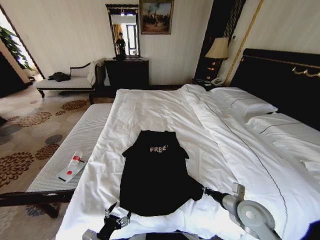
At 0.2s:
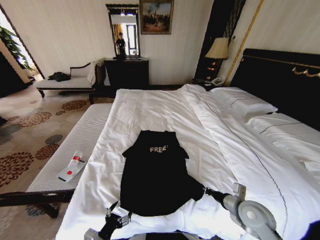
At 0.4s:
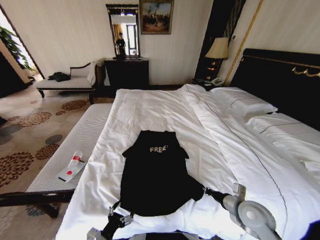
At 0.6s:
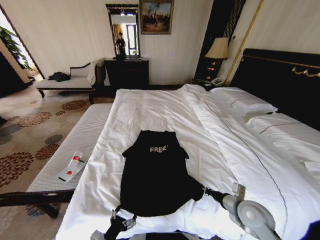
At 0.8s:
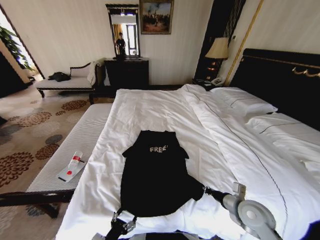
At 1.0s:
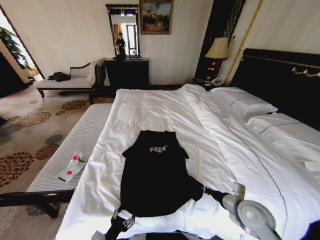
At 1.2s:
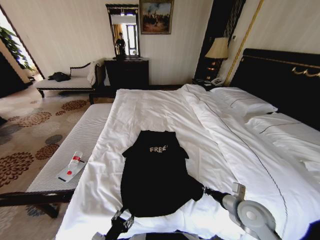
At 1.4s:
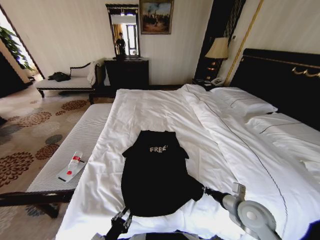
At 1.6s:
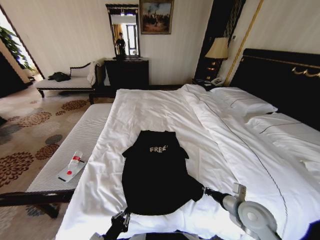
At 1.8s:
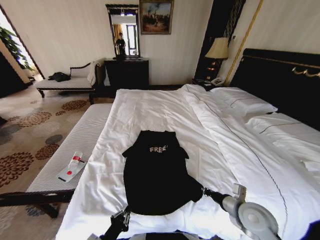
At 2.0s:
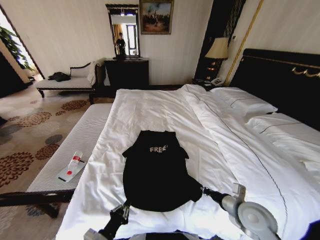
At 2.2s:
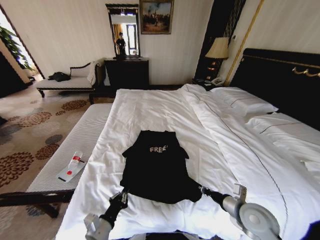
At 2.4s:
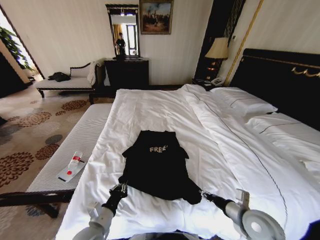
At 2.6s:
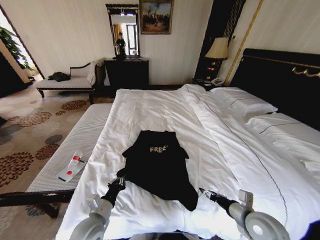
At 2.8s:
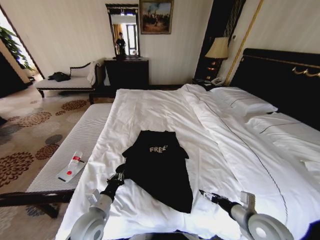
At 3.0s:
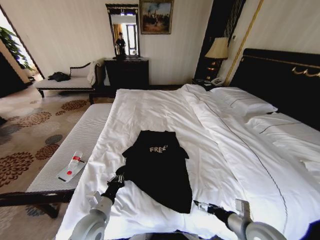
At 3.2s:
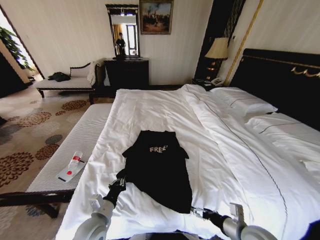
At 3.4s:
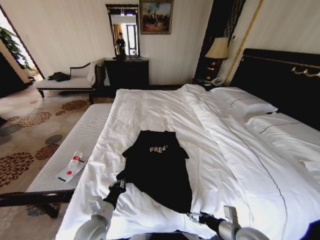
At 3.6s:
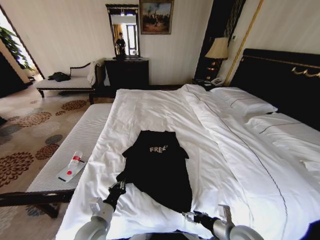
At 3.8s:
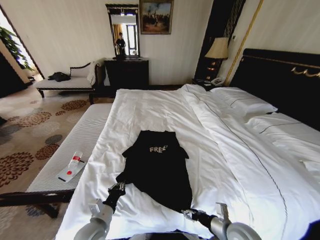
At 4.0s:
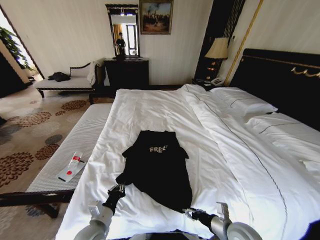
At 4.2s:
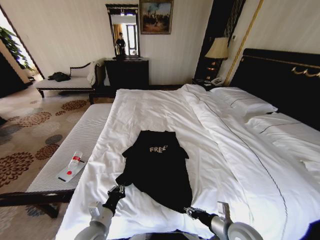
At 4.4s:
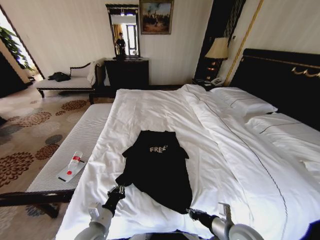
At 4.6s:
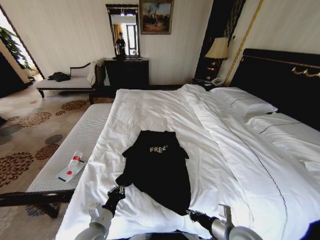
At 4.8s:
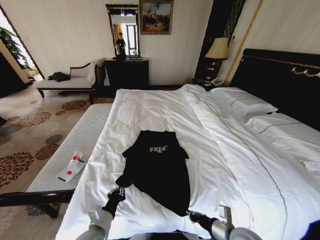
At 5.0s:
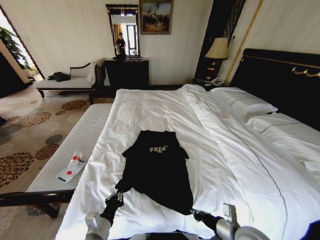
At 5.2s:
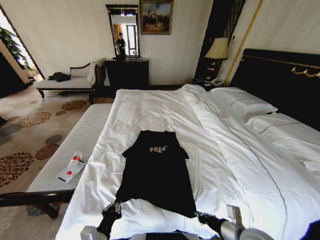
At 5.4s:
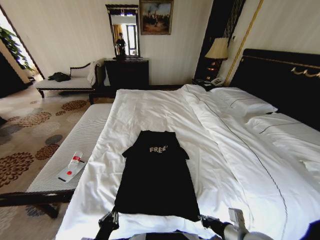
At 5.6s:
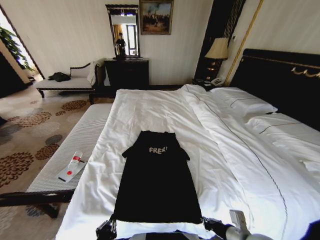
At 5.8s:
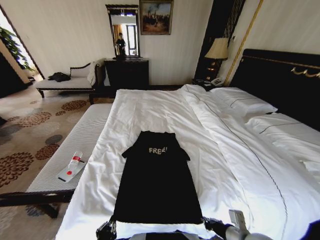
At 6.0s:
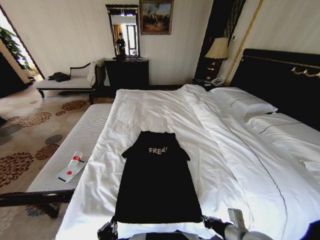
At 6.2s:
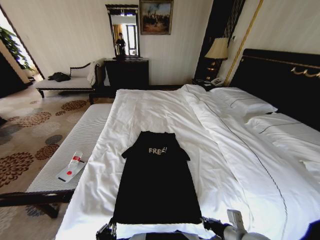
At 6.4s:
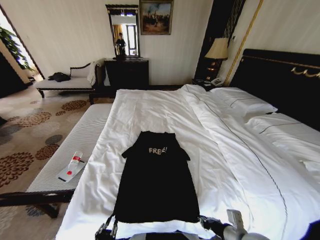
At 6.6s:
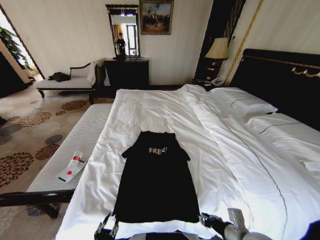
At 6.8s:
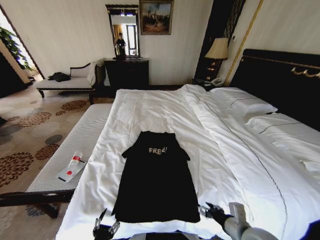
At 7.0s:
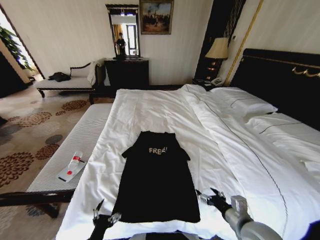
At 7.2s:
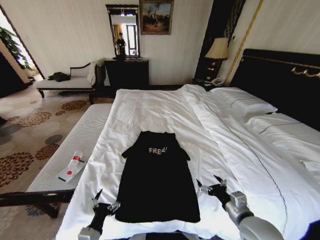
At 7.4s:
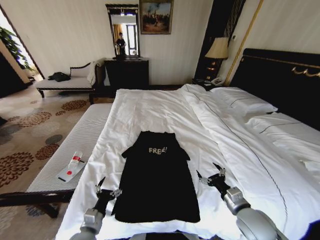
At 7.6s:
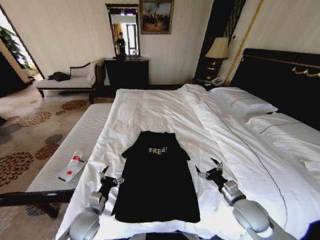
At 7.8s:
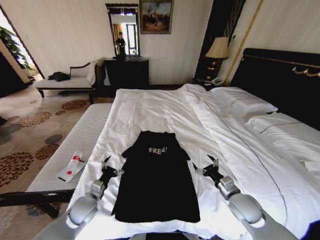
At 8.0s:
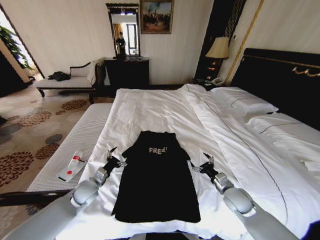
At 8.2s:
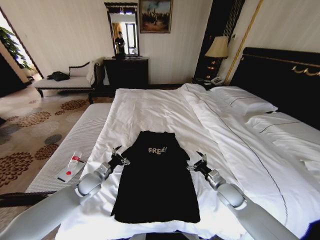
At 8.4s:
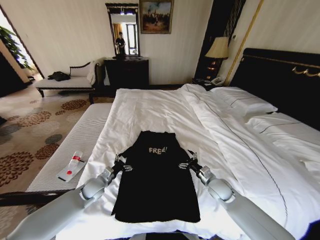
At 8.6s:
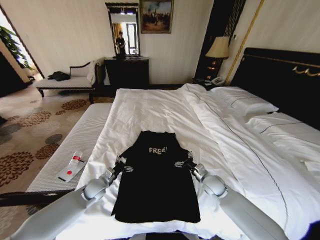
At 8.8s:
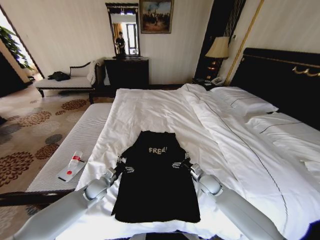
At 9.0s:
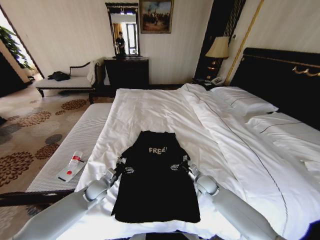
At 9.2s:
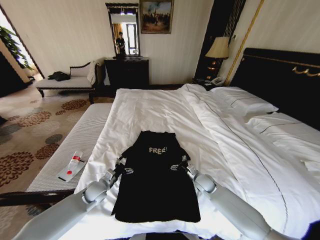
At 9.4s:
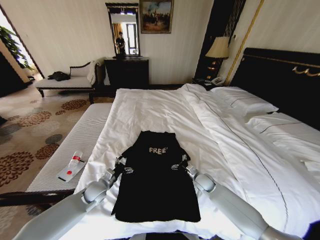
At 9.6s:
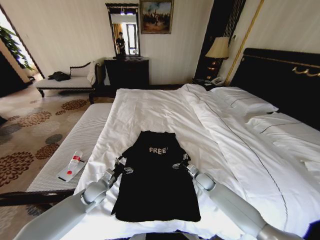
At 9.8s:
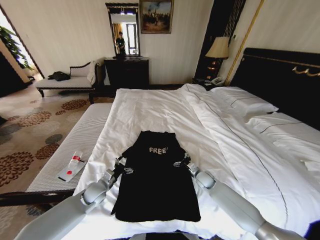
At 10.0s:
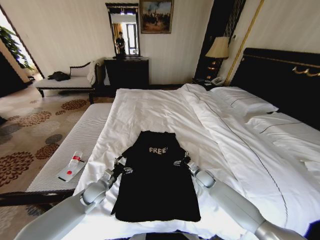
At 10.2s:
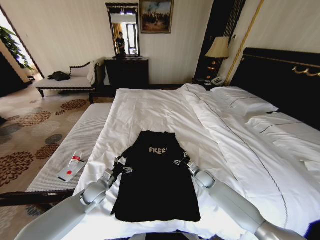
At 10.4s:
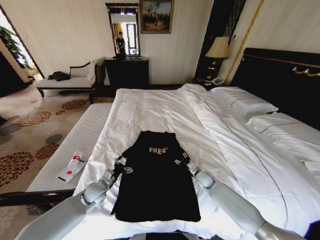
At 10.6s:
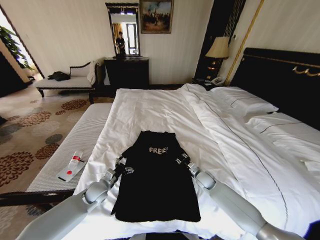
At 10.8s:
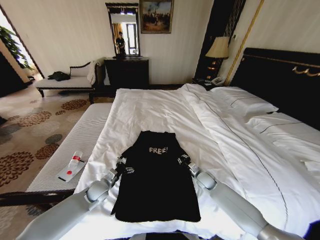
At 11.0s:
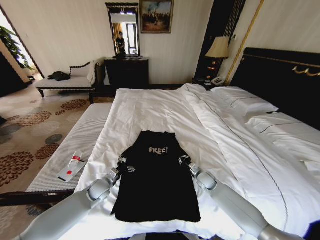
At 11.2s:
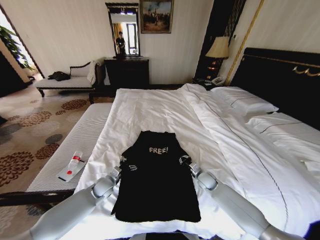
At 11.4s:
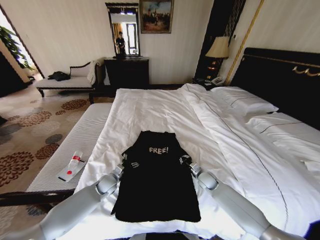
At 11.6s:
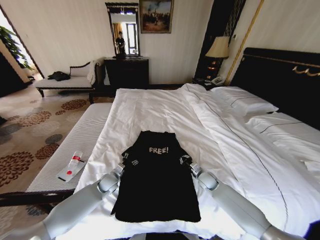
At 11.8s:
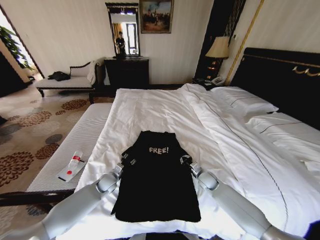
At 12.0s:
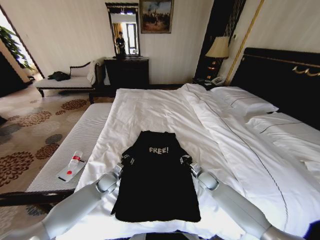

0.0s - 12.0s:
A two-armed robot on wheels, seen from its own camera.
Task of the whole recording: Fold the clothes on the bed.
0.0s - 1.6s: The left gripper closes up.
1.6s - 3.0s: The left gripper travels forward and upward by roughly 15 cm. The right gripper travels backward by some 5 cm, and opens.
3.0s - 4.4s: The right gripper changes place by some 5 cm, and closes up.
4.4s - 6.0s: The left gripper is displaced backward by some 10 cm.
6.0s - 7.6s: The left gripper moves forward, approximately 20 cm, and opens up, while the right gripper moves forward, some 10 cm, and opens.
7.6s - 9.0s: The left gripper heads forward, covering about 15 cm. Meanwhile the right gripper moves forward, downward and to the left, approximately 20 cm.
9.0s - 10.4s: The grippers make only small movements.
10.4s - 12.0s: The right gripper closes. Meanwhile the left gripper moves forward, approximately 5 cm, and closes.

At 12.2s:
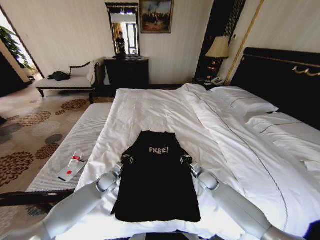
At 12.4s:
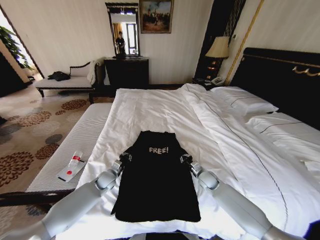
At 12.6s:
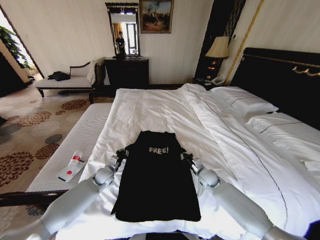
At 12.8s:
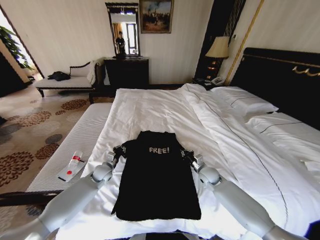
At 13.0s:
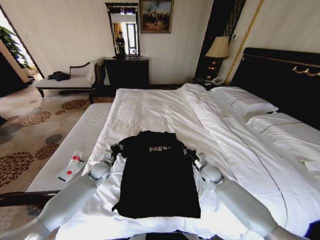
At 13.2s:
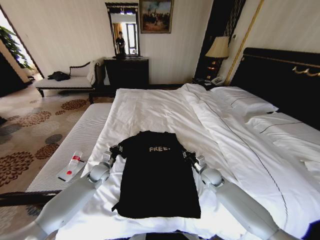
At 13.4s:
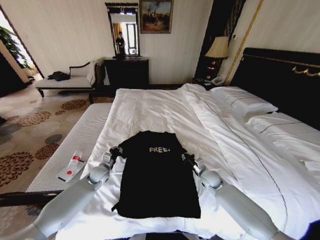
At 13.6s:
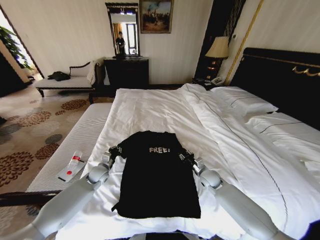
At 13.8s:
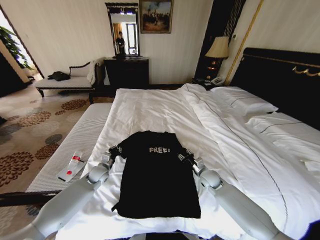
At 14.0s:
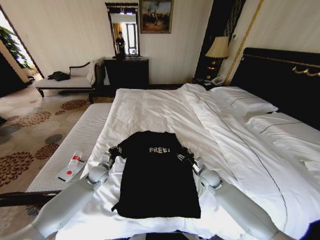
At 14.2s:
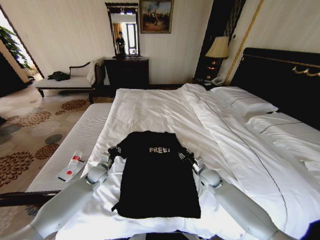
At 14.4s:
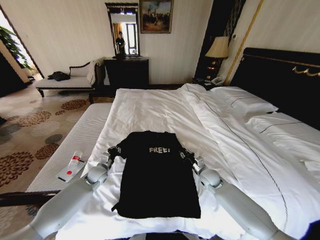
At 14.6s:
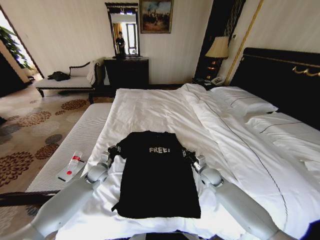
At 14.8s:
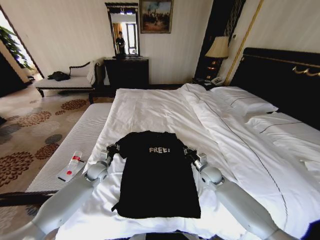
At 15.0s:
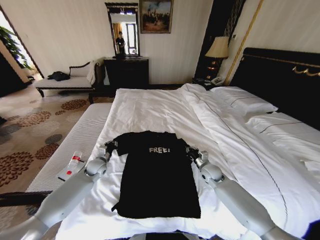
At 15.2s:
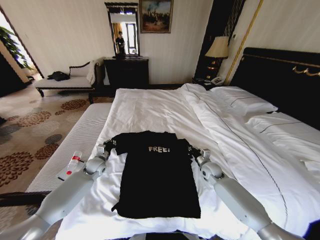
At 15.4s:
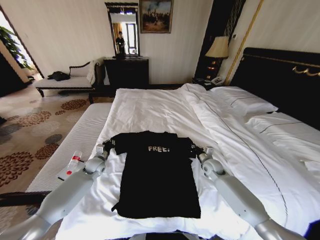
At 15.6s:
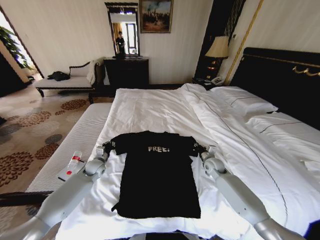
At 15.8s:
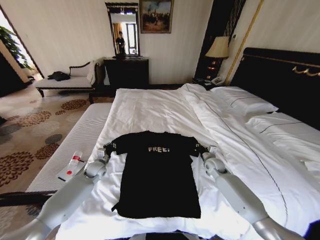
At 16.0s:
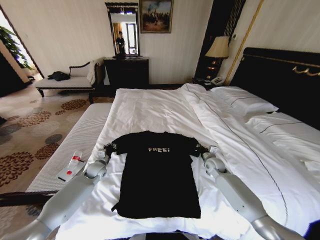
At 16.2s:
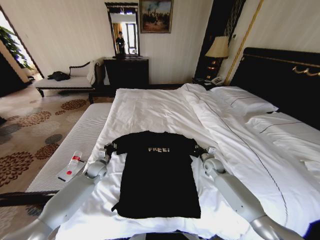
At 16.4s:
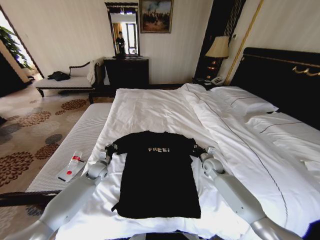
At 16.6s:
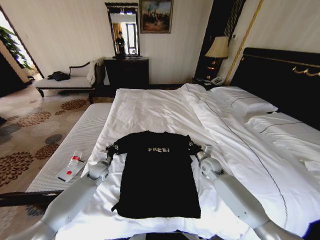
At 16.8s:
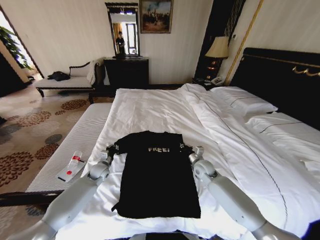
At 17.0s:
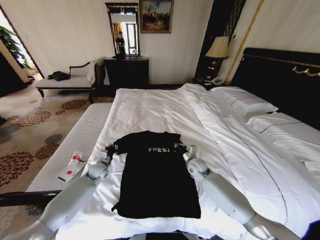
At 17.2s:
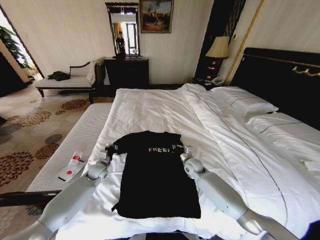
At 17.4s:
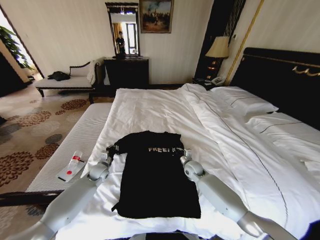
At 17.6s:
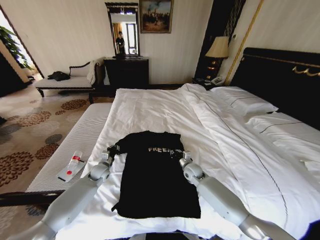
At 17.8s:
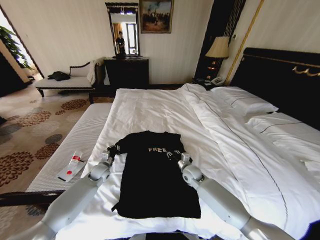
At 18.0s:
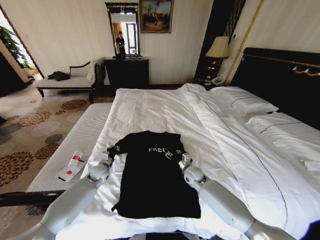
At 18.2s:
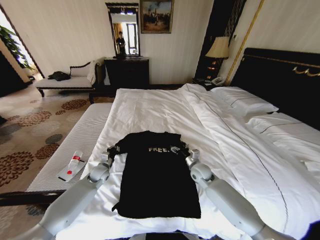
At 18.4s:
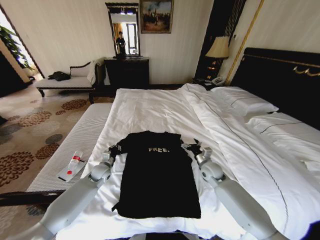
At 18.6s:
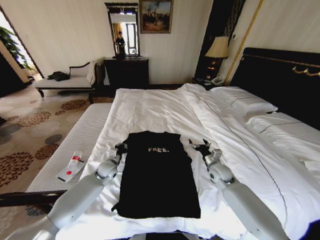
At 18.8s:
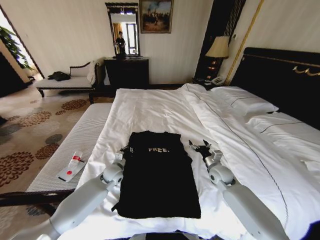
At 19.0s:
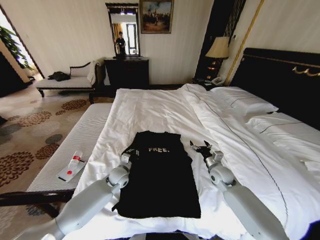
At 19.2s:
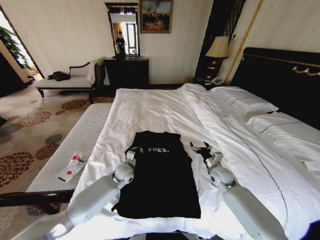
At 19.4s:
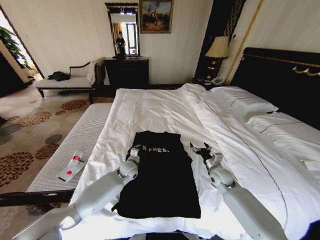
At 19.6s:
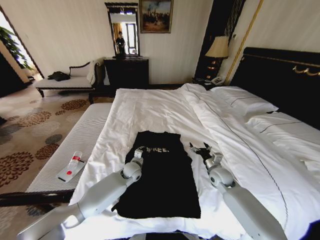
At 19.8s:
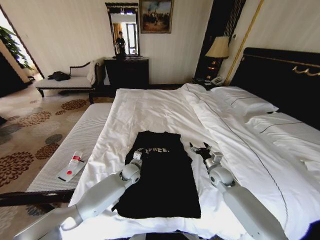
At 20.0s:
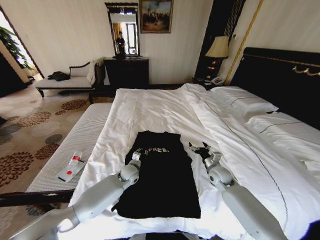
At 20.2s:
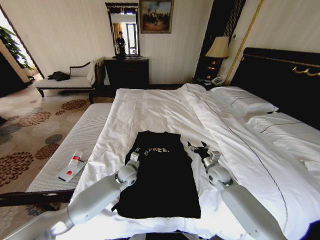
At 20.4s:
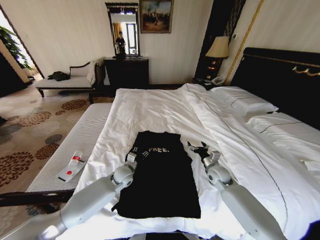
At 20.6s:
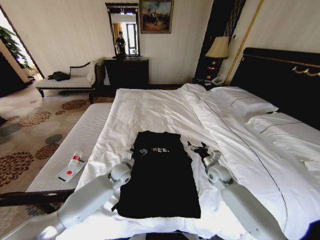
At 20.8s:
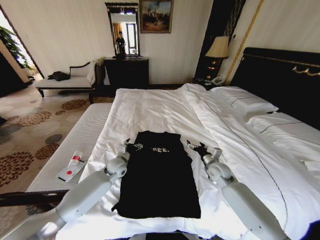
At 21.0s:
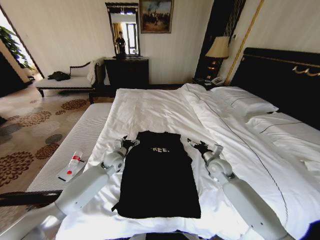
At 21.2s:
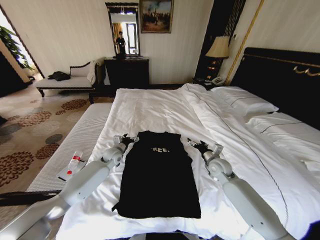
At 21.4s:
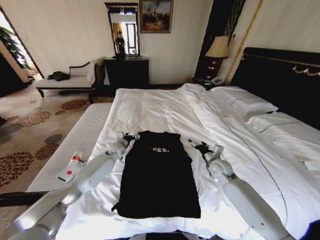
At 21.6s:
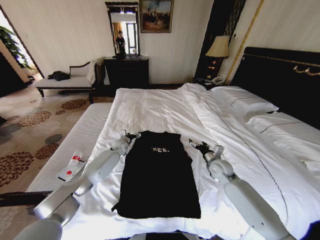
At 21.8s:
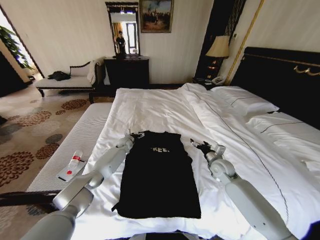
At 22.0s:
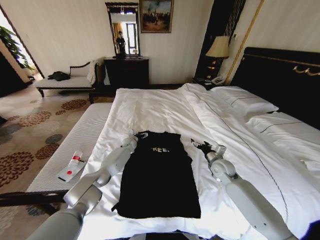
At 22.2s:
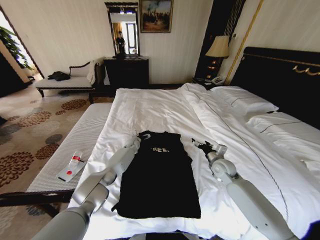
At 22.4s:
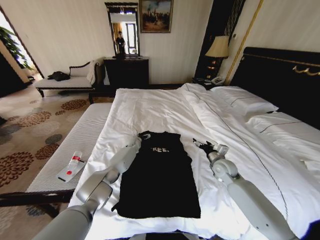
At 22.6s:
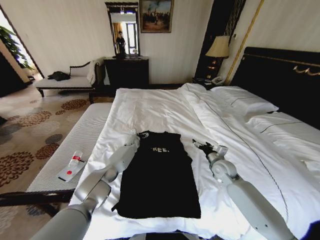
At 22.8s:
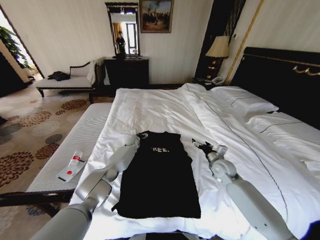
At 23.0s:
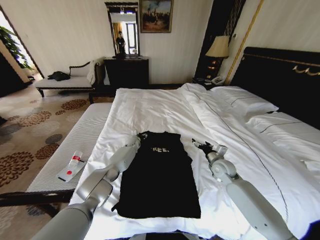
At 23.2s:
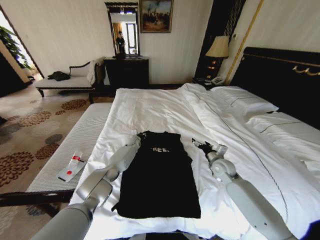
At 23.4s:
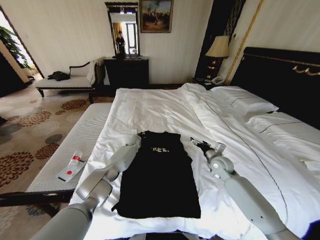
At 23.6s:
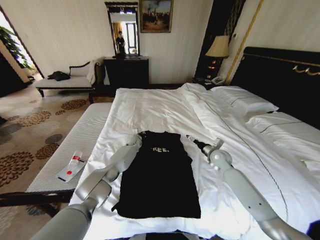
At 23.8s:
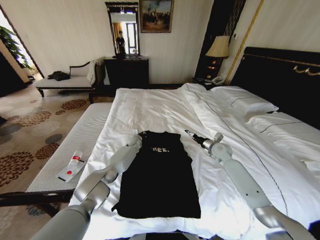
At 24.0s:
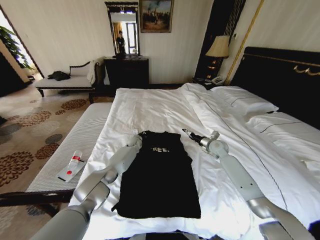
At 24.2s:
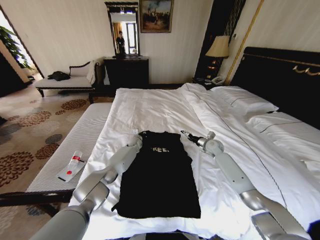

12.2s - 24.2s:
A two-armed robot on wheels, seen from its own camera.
Task of the whole recording: Fold the clothes on the bed.
12.2s - 13.8s: The left gripper changes place by some 5 cm. Meanwhile the right gripper opens up.
13.8s - 15.2s: The right gripper closes its fingers.
15.2s - 16.6s: The grippers move only a little.
16.6s - 18.2s: The right gripper heads to the left, covering approximately 5 cm, and opens its fingers.
18.2s - 19.8s: The right gripper moves to the right, about 10 cm. Meanwhile the left gripper shifts some 15 cm to the right.
19.8s - 21.2s: The right gripper ends up approximately 5 cm from where it was; the left gripper is displaced to the left, forward and upward by approximately 15 cm, and opens.
21.2s - 22.6s: The left gripper heads forward, to the right and downward, covering approximately 20 cm.
22.6s - 24.2s: The right gripper travels forward by some 15 cm, while the left gripper closes up.
